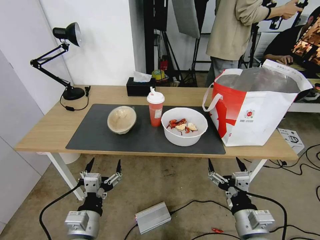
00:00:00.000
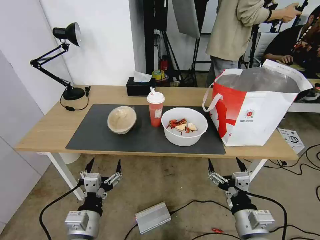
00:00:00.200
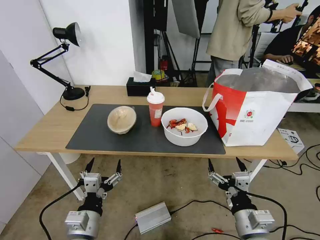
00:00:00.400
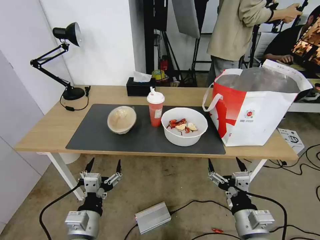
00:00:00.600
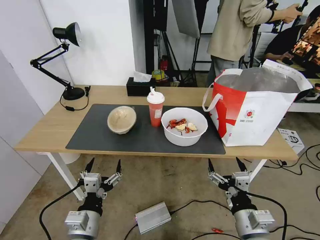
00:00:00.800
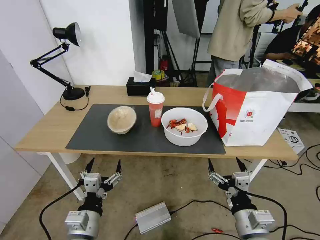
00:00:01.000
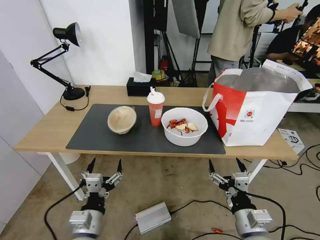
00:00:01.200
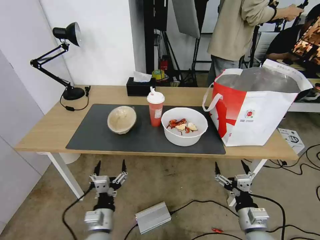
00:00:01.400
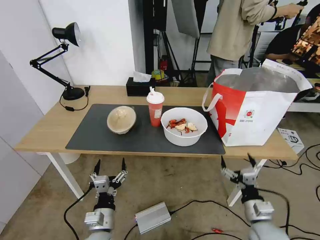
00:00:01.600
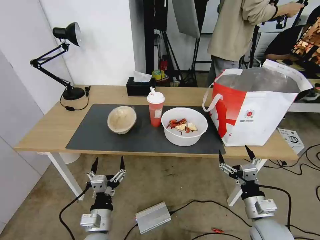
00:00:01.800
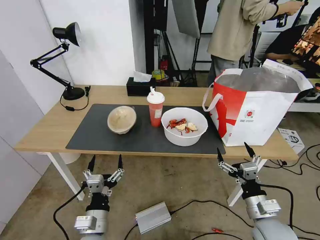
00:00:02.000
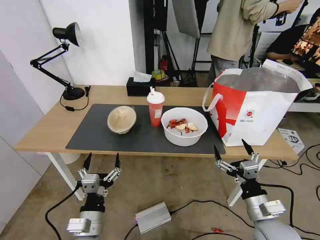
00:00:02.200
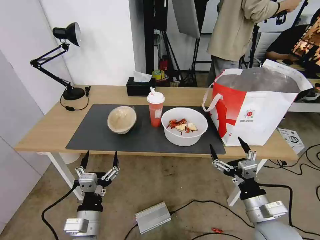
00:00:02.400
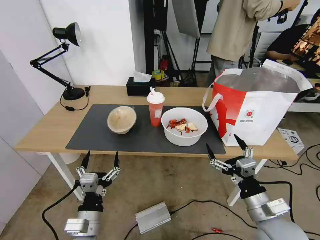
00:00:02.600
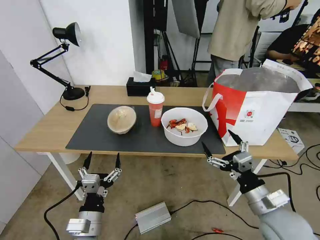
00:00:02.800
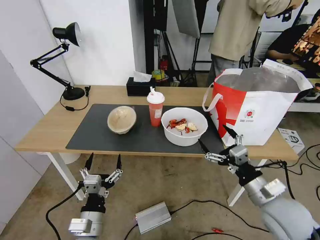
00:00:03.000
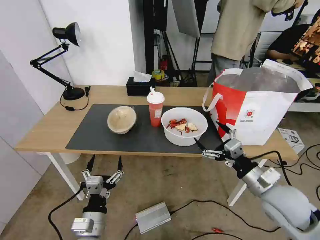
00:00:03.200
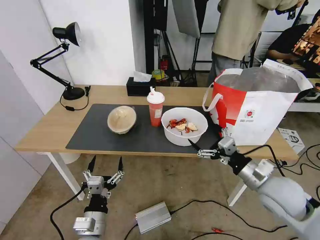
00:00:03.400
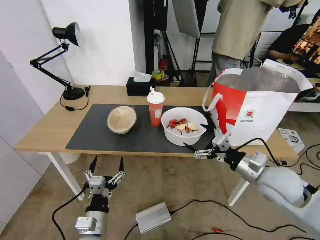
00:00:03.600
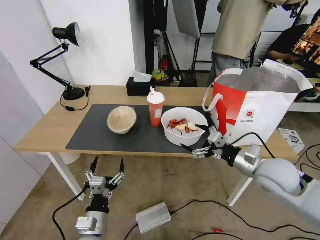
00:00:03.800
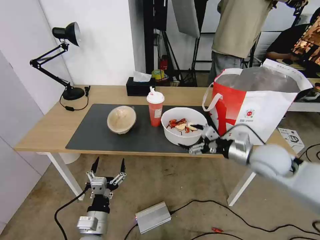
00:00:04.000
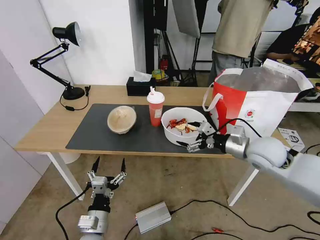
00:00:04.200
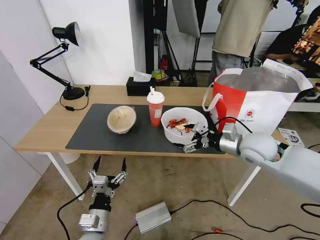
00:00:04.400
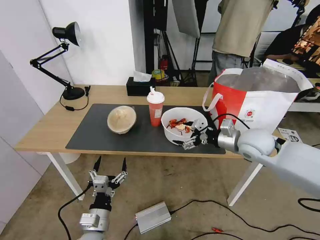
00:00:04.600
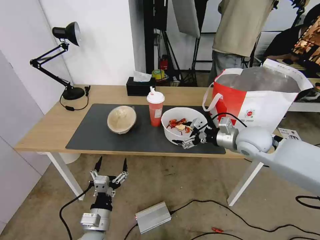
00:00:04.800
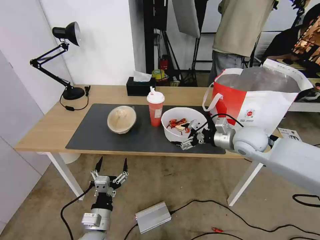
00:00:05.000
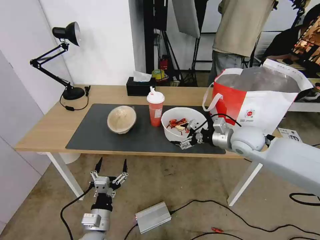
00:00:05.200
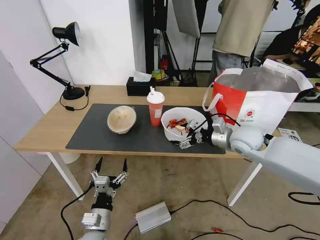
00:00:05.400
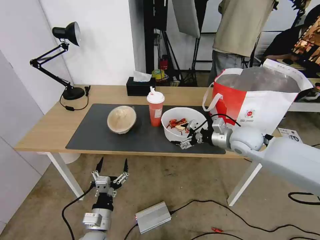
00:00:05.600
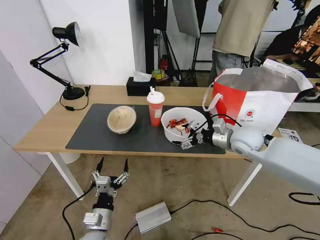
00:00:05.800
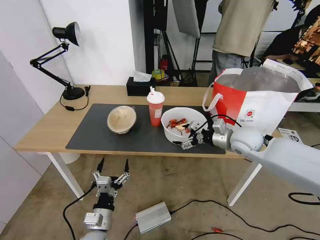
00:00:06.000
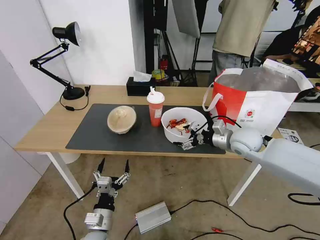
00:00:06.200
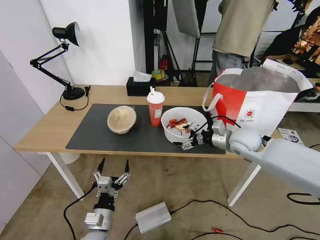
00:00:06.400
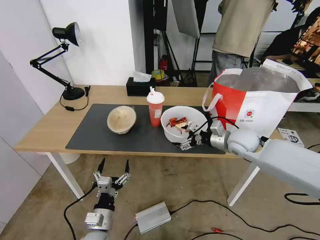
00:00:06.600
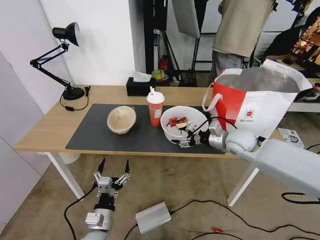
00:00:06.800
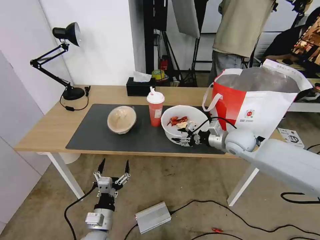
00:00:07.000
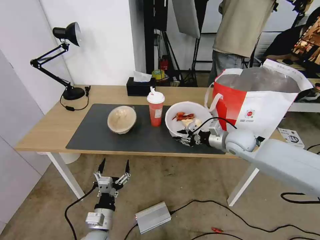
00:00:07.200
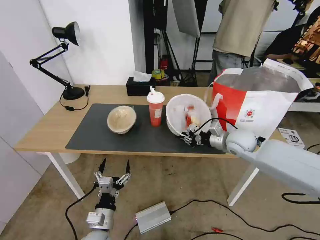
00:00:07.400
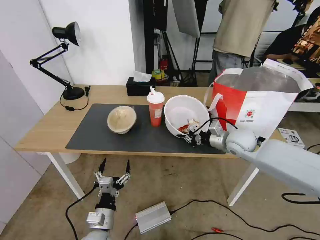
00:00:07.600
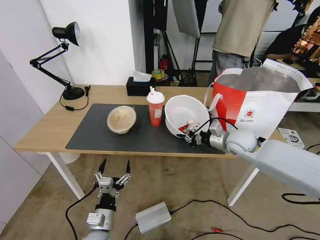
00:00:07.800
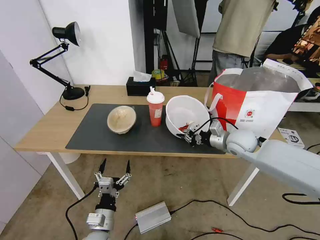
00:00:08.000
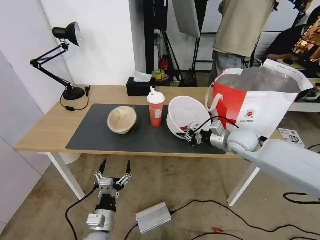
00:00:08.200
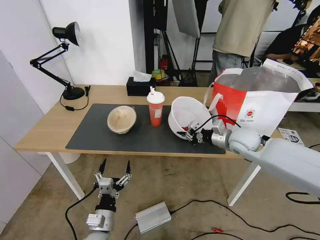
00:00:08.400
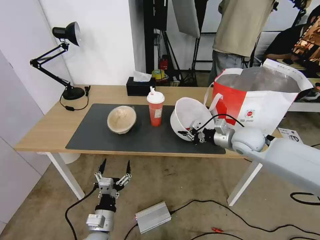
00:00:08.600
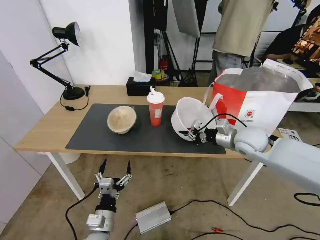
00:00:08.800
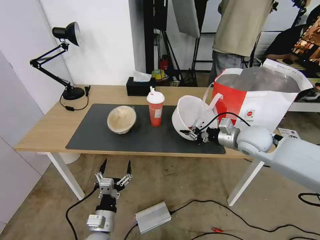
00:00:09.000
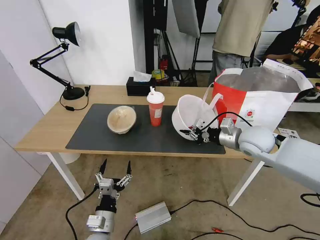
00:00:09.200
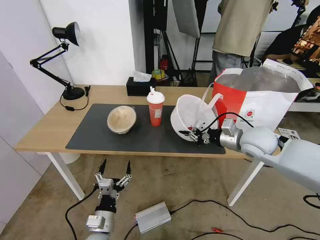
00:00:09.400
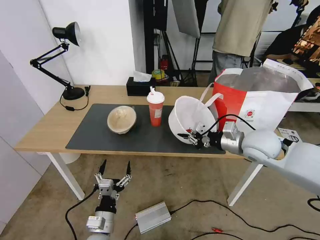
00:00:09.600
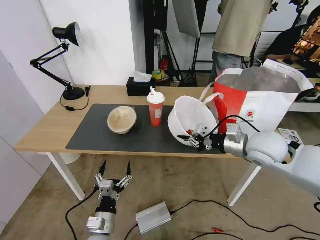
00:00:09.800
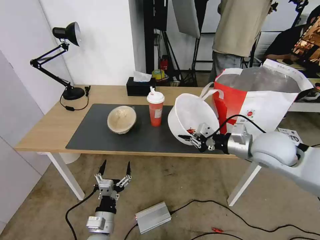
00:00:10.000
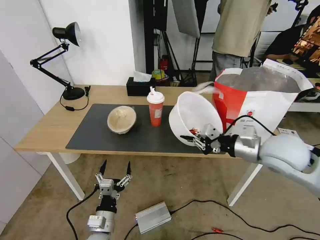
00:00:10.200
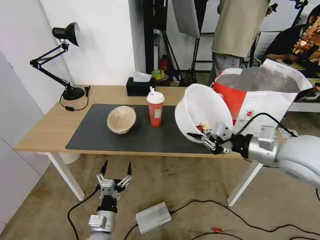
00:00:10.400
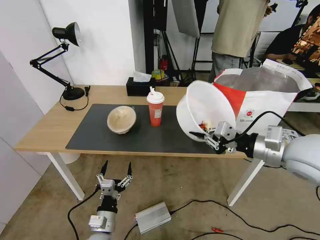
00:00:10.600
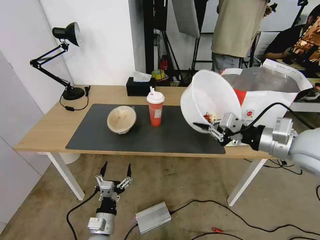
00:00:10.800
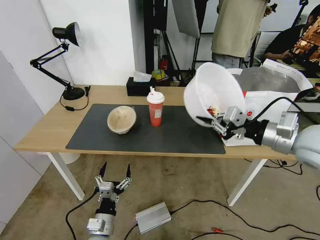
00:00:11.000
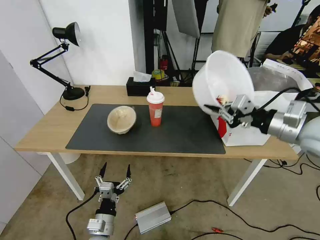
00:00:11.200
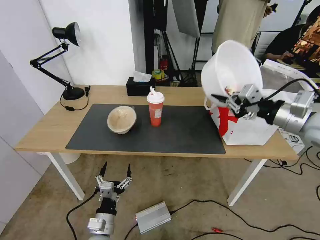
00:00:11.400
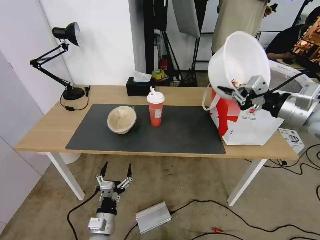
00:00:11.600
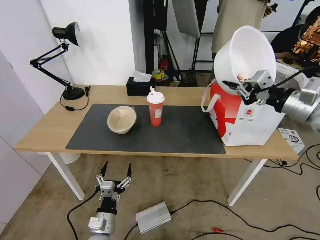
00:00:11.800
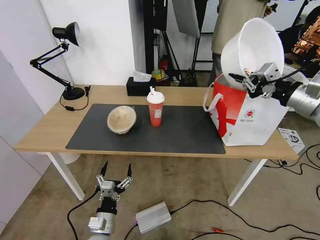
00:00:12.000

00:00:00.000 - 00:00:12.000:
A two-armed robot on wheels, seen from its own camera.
Task of the whole recording: Pick up the trash from the table and place it into the takeout bag.
00:00:01.600 - 00:00:03.000: The left gripper changes place by about 5 cm; the right gripper is displaced upward by some 10 cm.
00:00:03.000 - 00:00:04.400: The right gripper moves forward, some 15 cm.
00:00:04.400 - 00:00:06.000: There are only small adjustments of the grippers.
00:00:06.000 - 00:00:07.600: The right gripper closes its fingers.
00:00:07.600 - 00:00:09.000: The right gripper ends up approximately 5 cm from where it was.
00:00:09.000 - 00:00:10.400: The right gripper heads backward and upward, covering roughly 15 cm.
00:00:10.400 - 00:00:12.000: The right gripper shifts roughly 15 cm to the right, upward and forward.

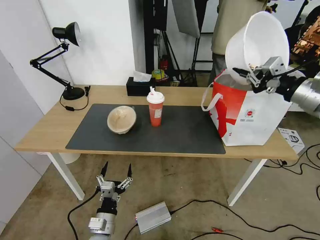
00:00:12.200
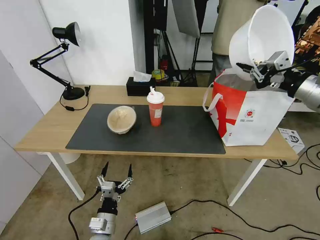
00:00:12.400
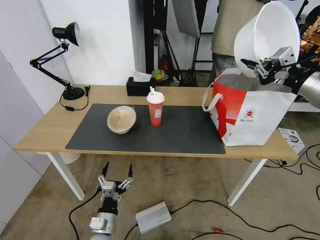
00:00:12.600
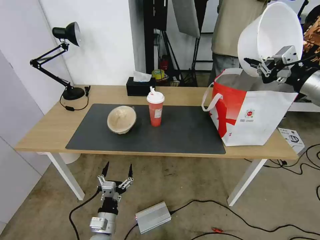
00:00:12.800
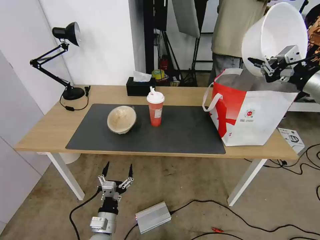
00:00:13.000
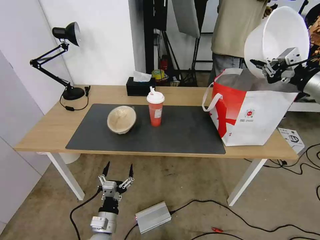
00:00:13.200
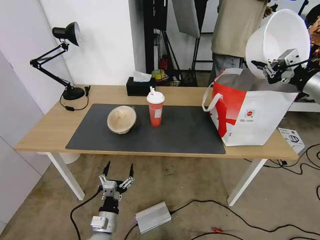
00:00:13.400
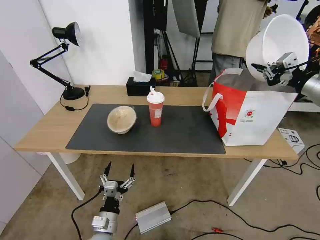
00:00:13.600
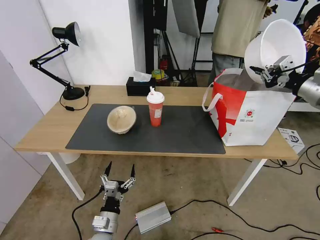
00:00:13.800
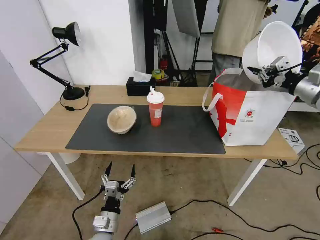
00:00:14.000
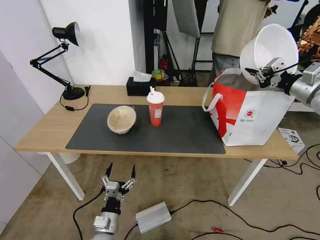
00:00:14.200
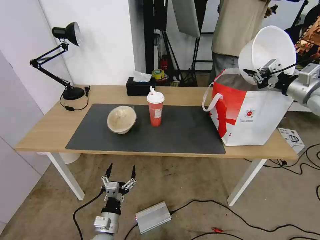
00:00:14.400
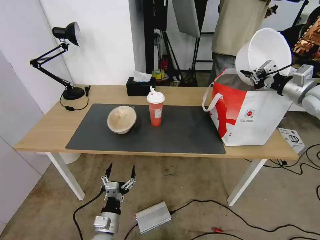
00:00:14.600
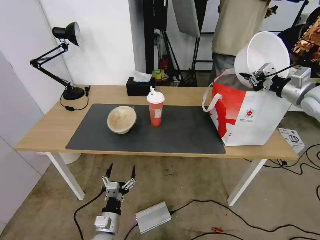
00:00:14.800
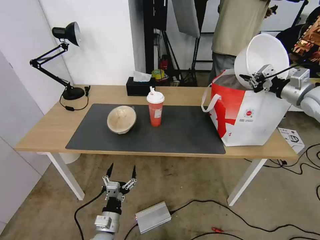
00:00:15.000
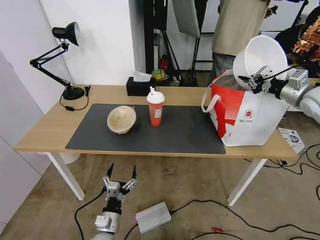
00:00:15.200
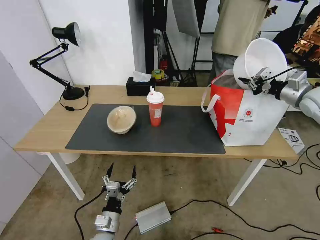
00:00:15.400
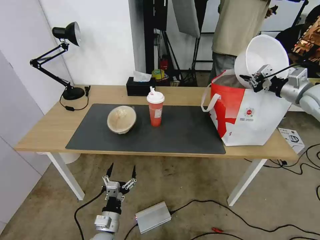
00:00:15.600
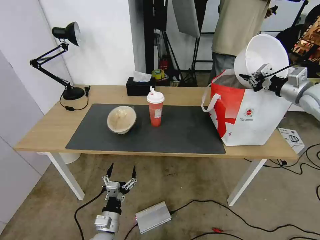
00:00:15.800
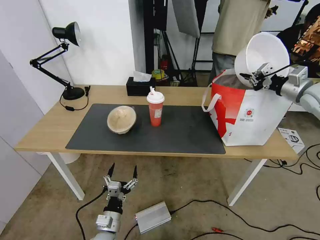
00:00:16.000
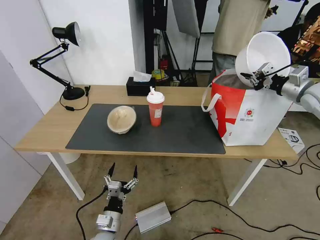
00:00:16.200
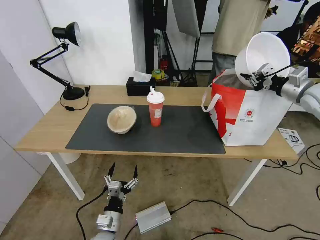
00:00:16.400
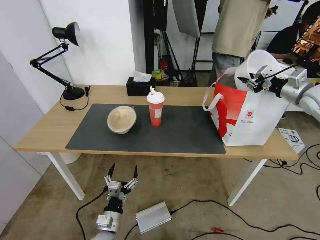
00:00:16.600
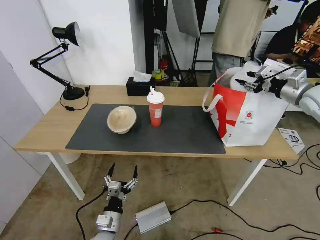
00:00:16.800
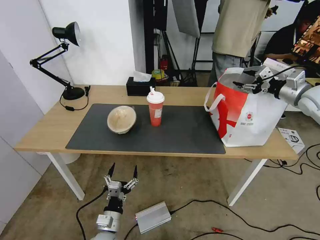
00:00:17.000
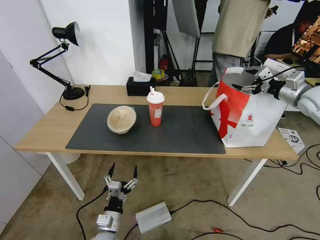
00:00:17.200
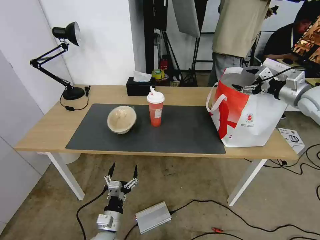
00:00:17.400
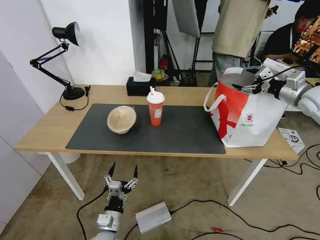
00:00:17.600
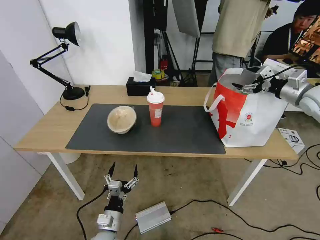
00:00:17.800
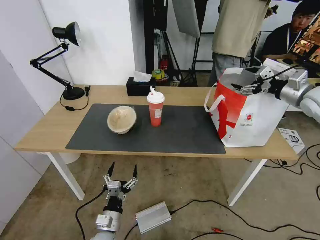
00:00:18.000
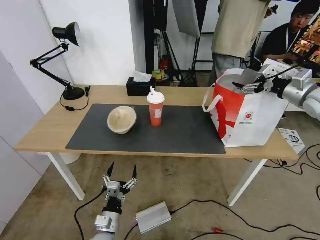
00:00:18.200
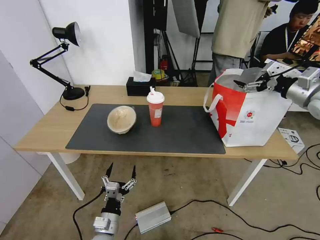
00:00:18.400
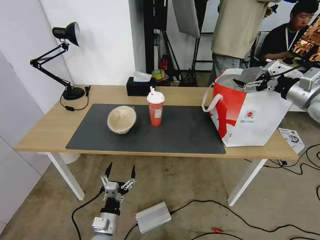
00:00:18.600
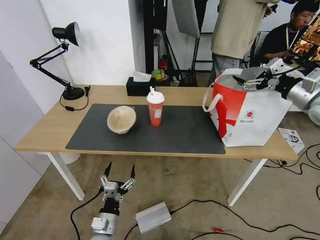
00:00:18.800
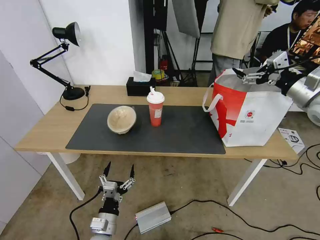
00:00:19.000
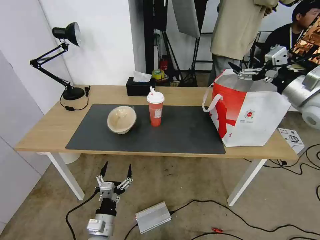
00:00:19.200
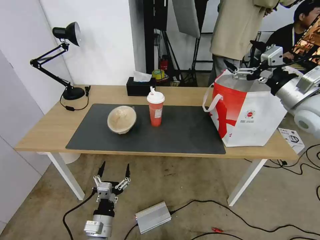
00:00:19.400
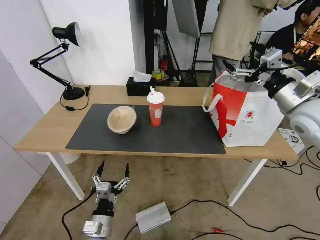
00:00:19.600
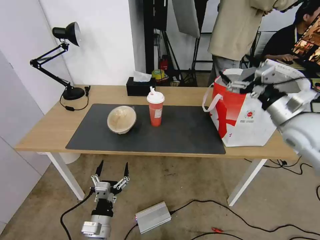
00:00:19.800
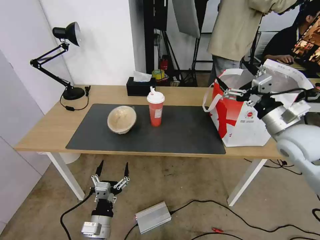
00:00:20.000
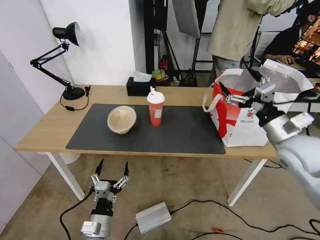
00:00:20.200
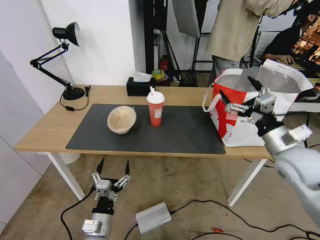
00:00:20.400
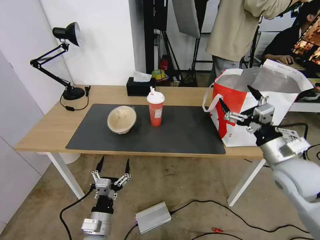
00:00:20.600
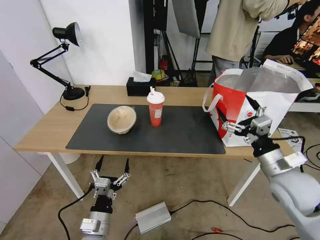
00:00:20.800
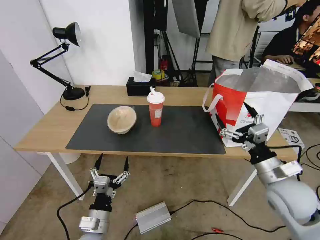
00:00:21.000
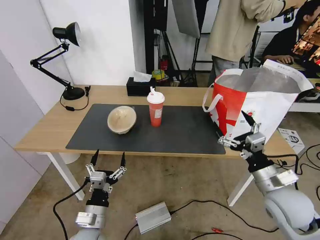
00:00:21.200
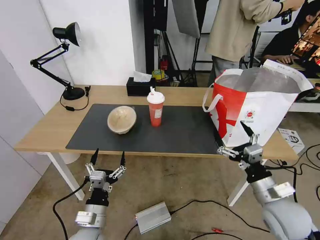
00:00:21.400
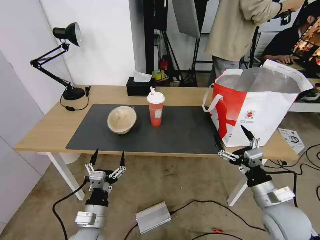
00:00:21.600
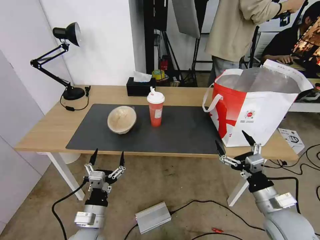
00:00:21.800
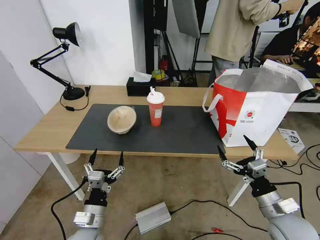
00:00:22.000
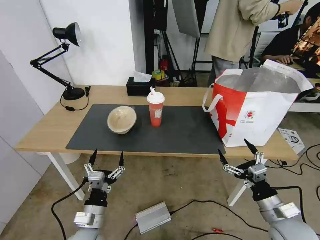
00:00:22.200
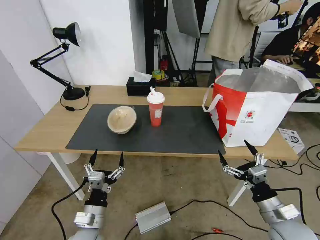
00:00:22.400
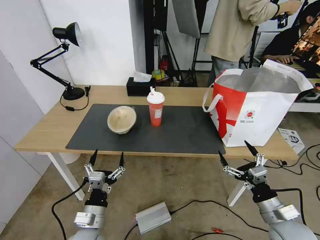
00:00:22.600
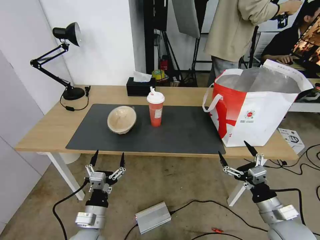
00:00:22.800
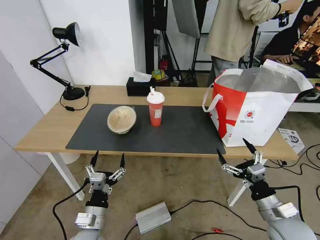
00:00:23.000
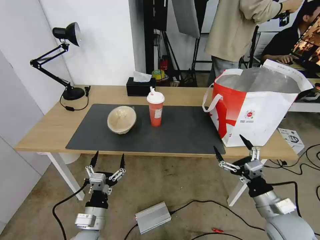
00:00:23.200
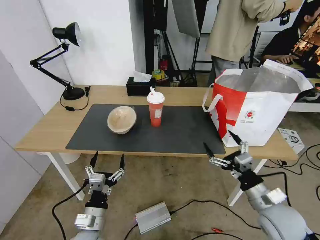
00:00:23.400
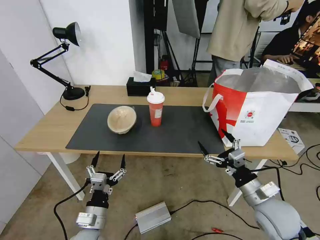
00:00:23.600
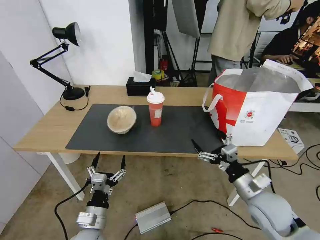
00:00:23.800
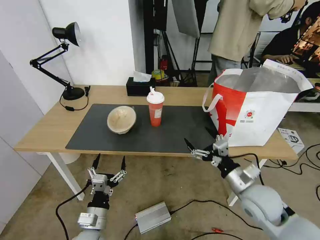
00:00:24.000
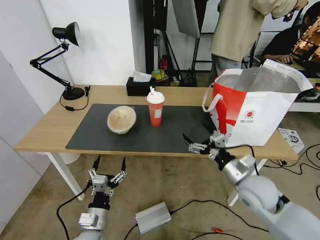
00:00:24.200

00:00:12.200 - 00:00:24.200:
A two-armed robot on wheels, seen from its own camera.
Task of the whole recording: Pick up the trash from the table and place it into the takeout bag.
00:00:12.200 - 00:00:13.800: The right gripper shifts some 10 cm to the right and forward.
00:00:13.800 - 00:00:15.200: The right gripper shifts about 5 cm forward.
00:00:15.200 - 00:00:16.600: The grippers move only a little.
00:00:16.600 - 00:00:18.200: The right gripper opens.
00:00:18.200 - 00:00:19.800: The right gripper shifts some 15 cm to the left and backward.
00:00:19.800 - 00:00:21.200: The right gripper goes approximately 20 cm downward and backward.
00:00:21.200 - 00:00:22.600: The right gripper moves downward and backward, approximately 10 cm.
00:00:22.600 - 00:00:24.200: The right gripper travels forward, to the left and upward by roughly 15 cm.
